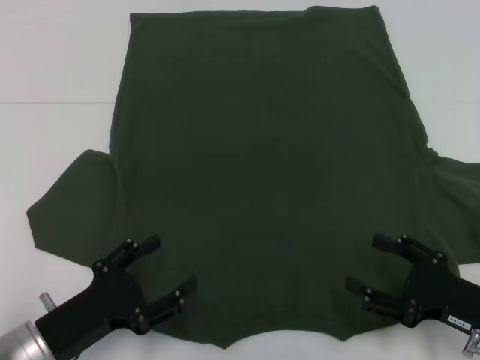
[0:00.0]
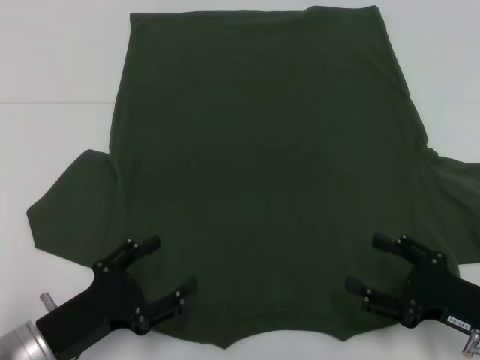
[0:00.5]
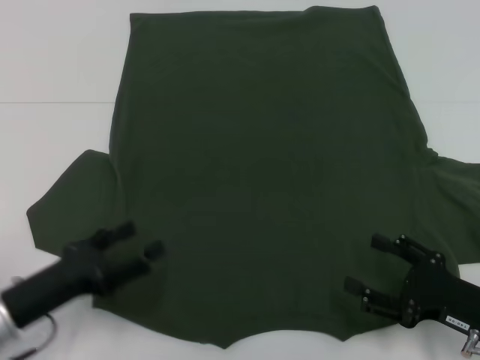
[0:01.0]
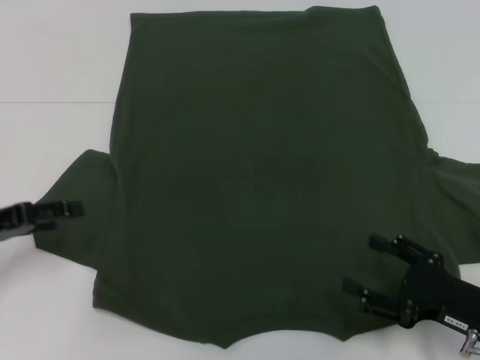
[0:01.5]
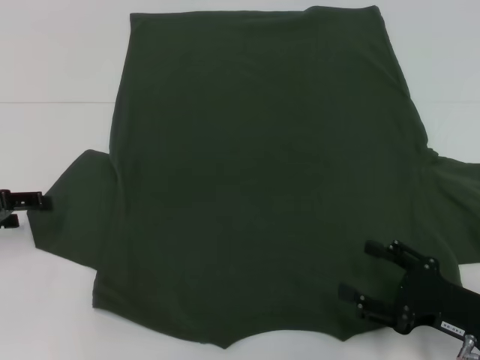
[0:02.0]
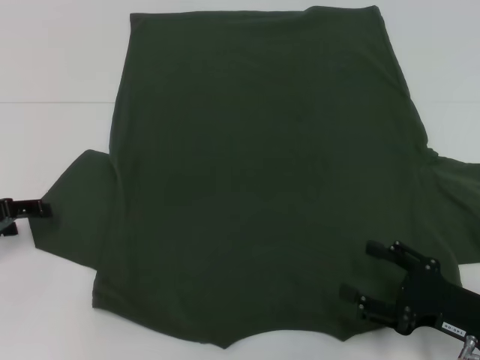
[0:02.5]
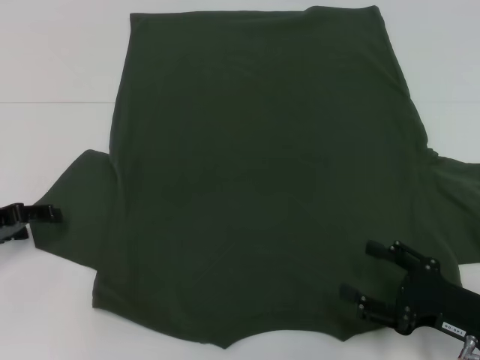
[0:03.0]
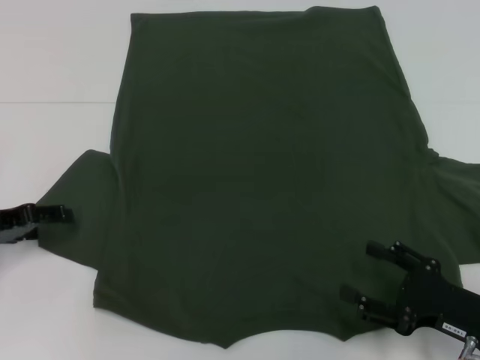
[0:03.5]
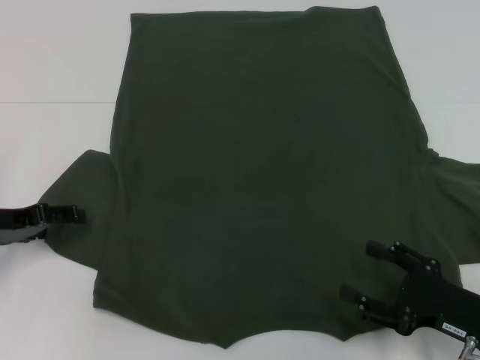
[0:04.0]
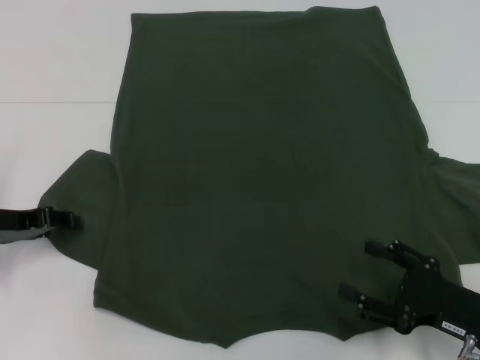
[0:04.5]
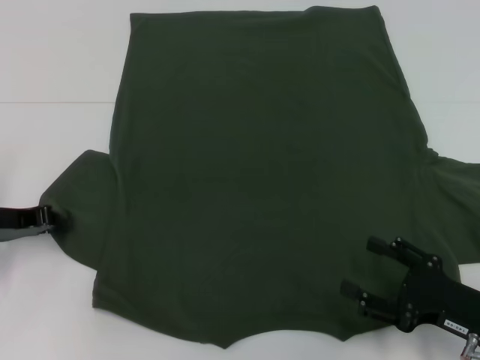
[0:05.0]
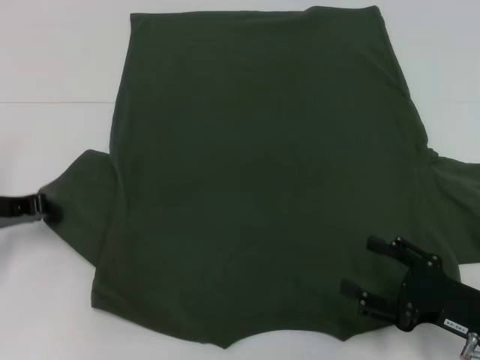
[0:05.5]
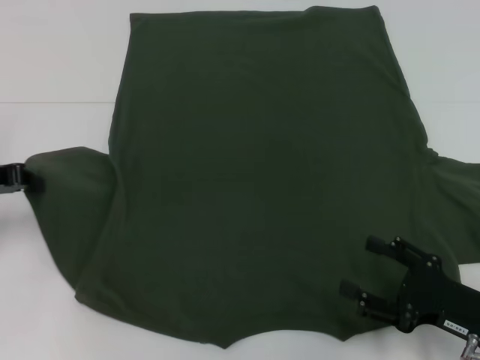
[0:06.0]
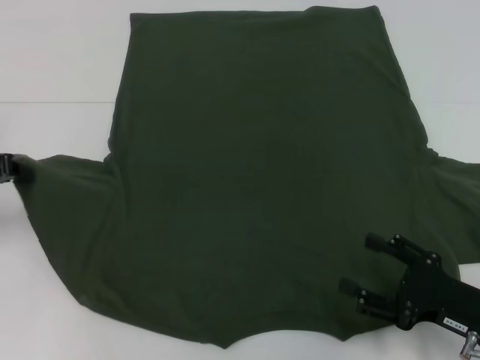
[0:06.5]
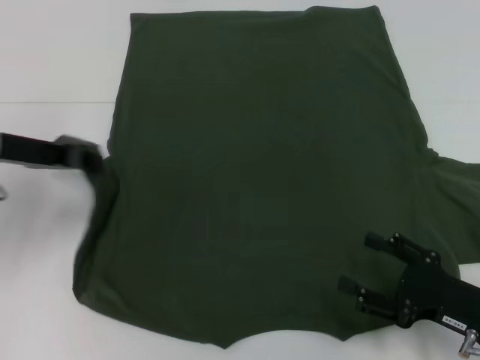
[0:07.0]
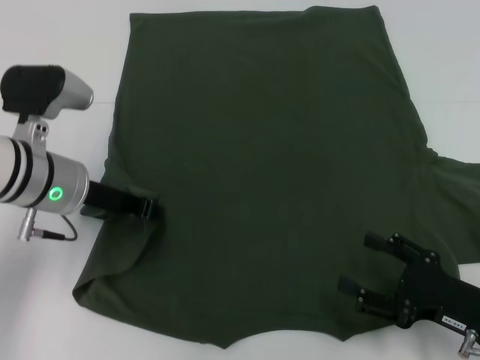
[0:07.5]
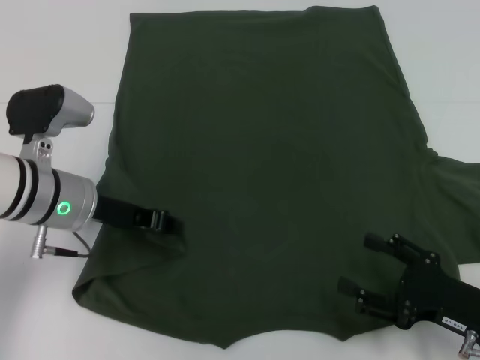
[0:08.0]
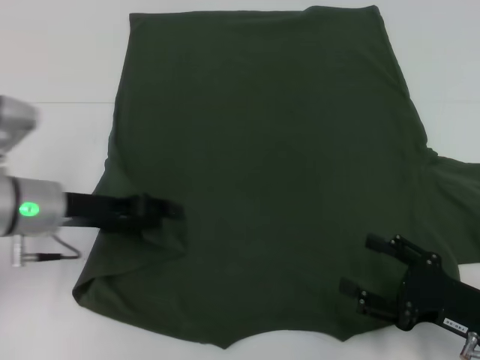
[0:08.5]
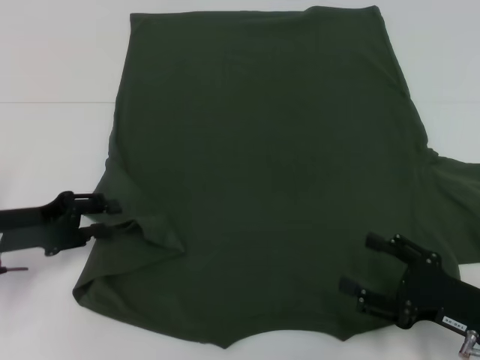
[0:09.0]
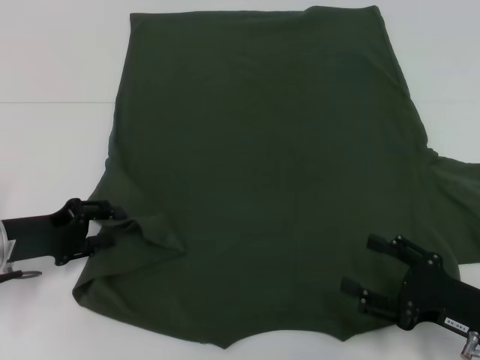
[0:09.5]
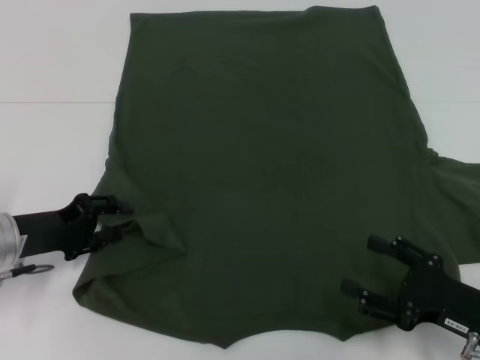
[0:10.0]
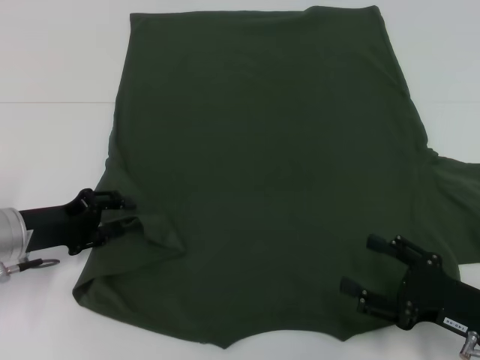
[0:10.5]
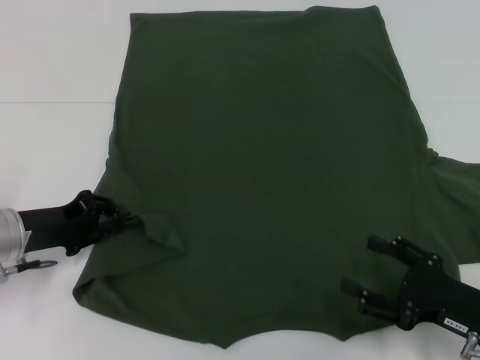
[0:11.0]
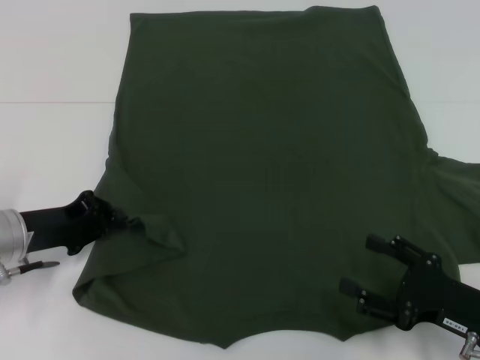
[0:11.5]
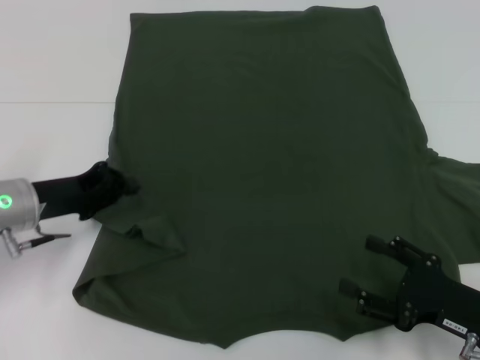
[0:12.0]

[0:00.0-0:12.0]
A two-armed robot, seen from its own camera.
0:00.0 to 0:02.0: The left gripper is displaced to the left, forward and upward by some 20 cm.
0:02.0 to 0:04.0: The grippers move only a little.
0:04.0 to 0:06.0: The left gripper moves upward, approximately 5 cm, and closes.
0:06.0 to 0:08.0: The left gripper shifts about 15 cm to the right.
0:08.0 to 0:10.0: The left gripper moves to the left and downward, roughly 10 cm, and opens its fingers.
0:10.0 to 0:12.0: The left gripper closes.

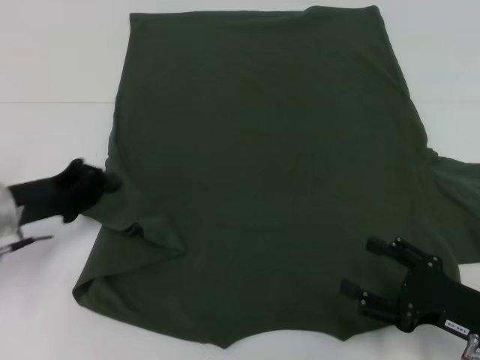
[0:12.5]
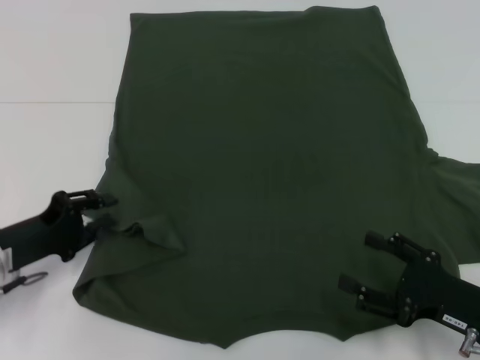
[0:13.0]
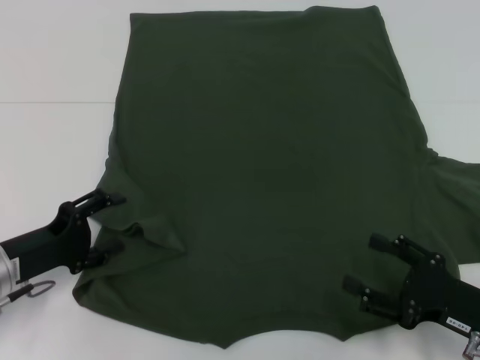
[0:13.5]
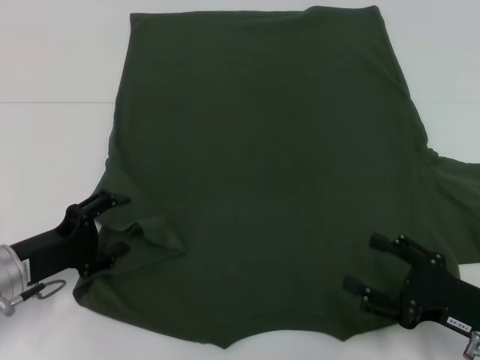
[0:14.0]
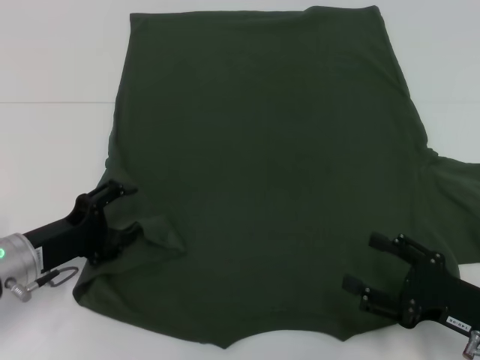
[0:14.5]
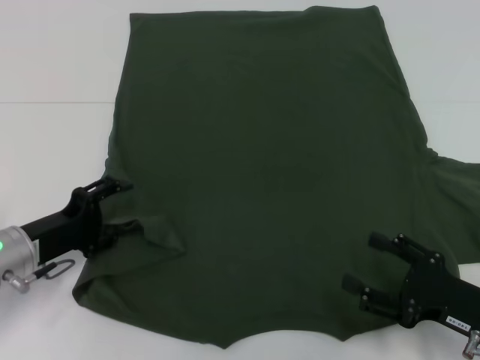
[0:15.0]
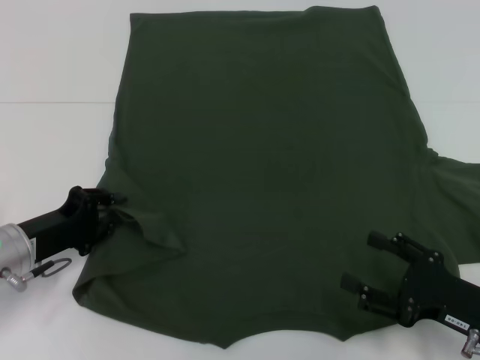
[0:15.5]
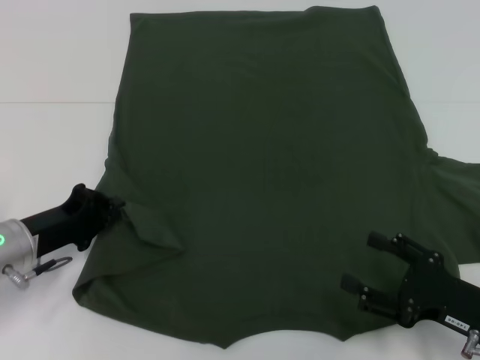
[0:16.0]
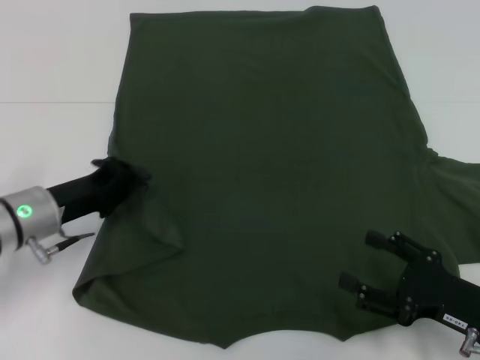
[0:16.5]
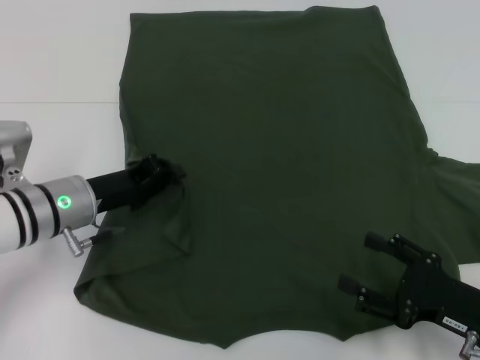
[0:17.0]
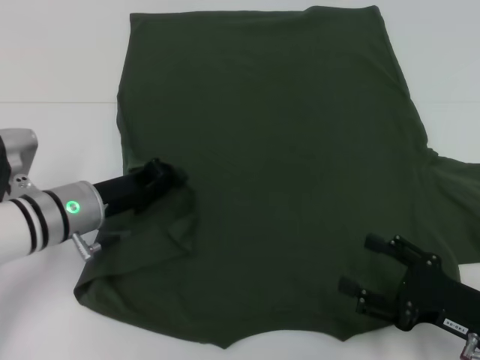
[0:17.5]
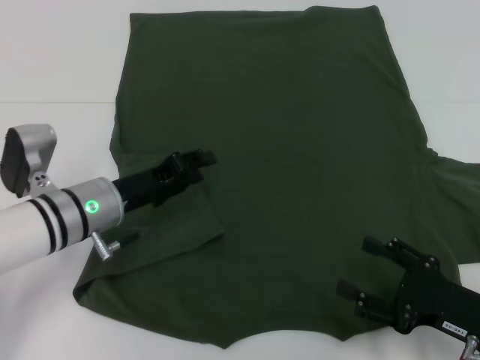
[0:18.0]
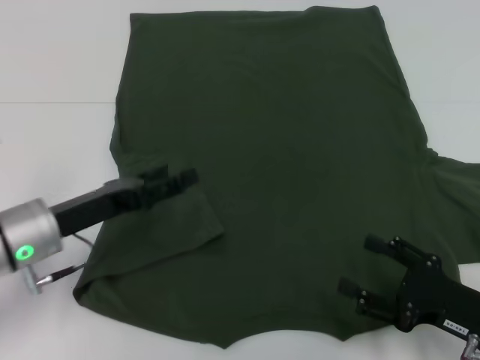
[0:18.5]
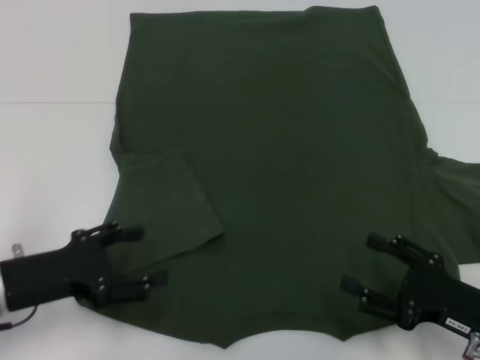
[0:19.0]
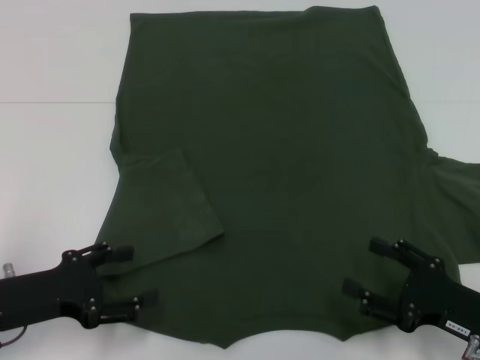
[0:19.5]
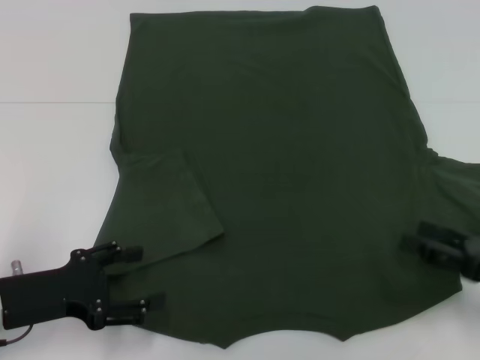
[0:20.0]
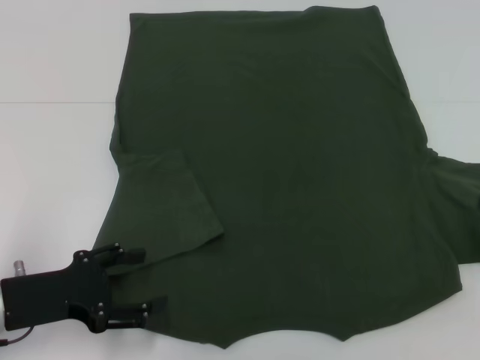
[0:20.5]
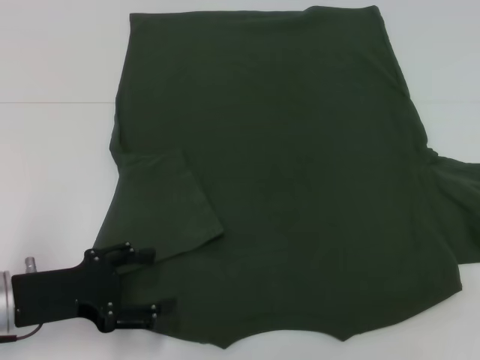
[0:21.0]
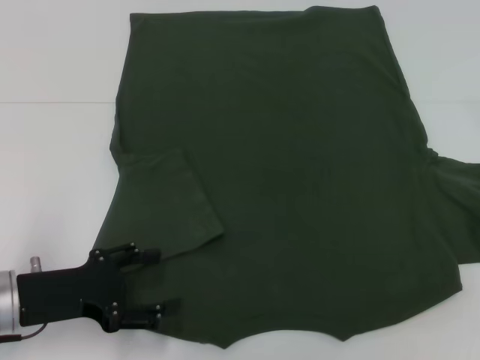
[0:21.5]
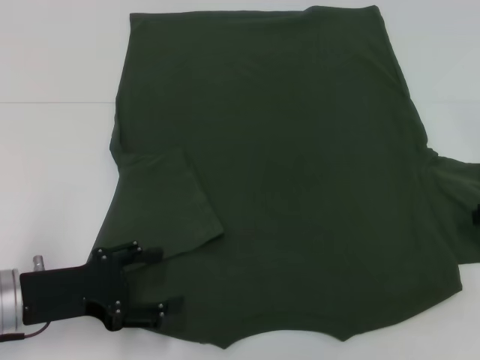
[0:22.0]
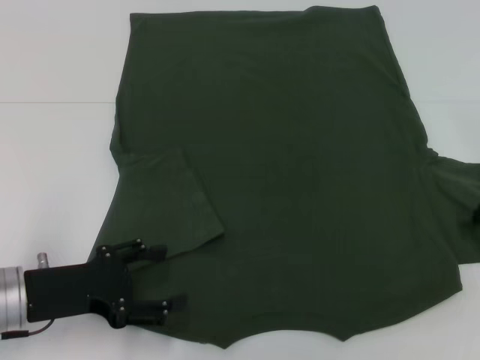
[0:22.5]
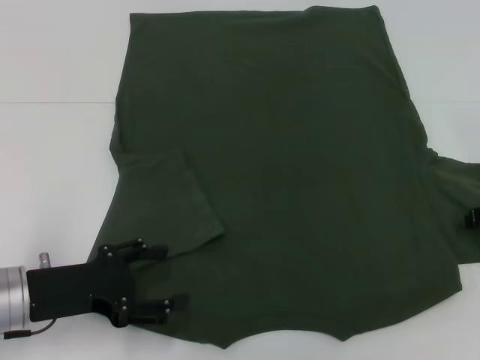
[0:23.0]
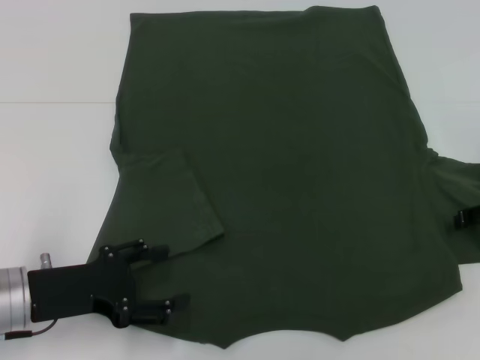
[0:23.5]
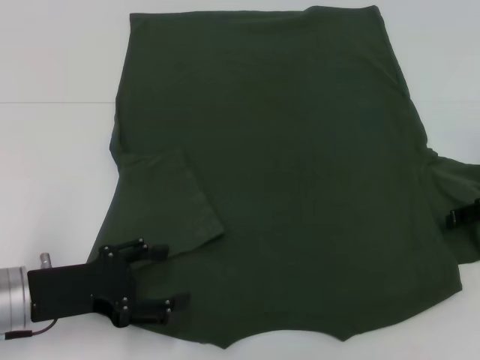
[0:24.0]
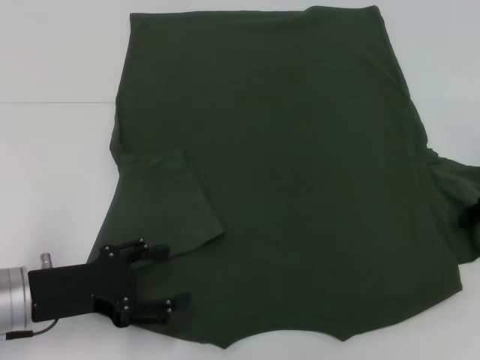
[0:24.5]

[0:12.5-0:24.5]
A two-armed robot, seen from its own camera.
Step, 0:12.5 to 0:17.5: Fold the bottom left sleeve with your left hand.
0:12.5 to 0:14.5: The left gripper ends up approximately 5 cm from where it was, and opens.
0:14.5 to 0:16.5: The left gripper changes place by approximately 5 cm, and closes up.
0:16.5 to 0:18.5: The left gripper opens its fingers.
0:18.5 to 0:20.5: The left gripper heads backward, covering some 5 cm. Meanwhile the right gripper is displaced to the right, upward and forward by about 20 cm.
0:22.5 to 0:24.5: The grippers make only small movements.

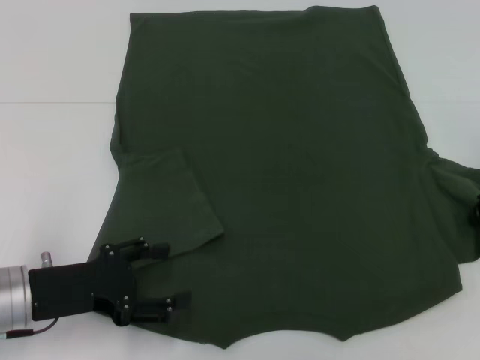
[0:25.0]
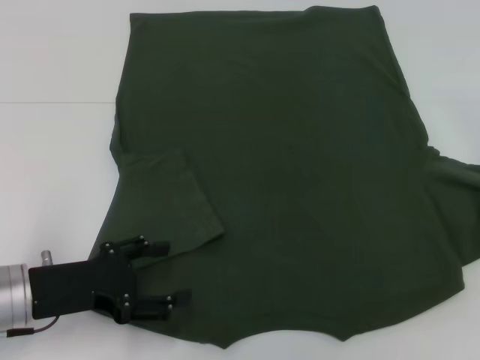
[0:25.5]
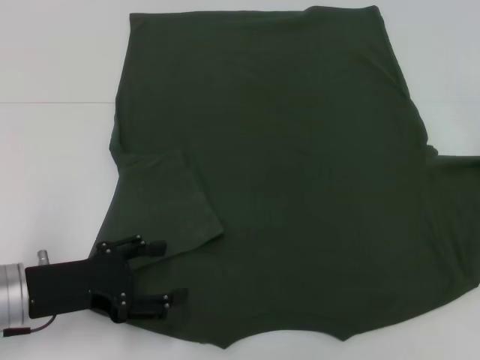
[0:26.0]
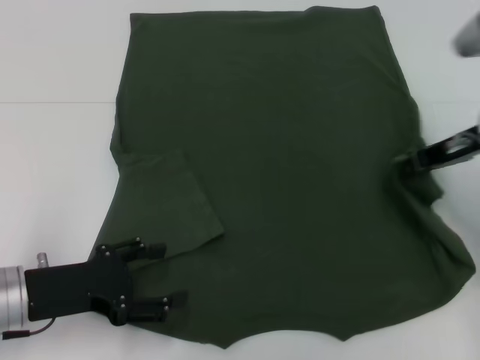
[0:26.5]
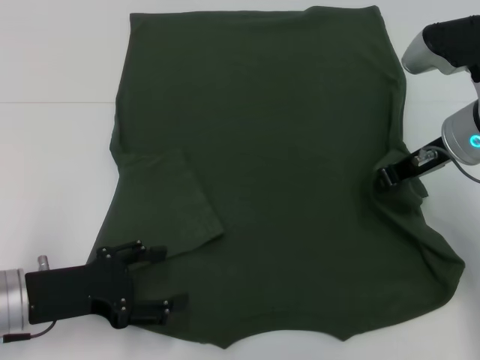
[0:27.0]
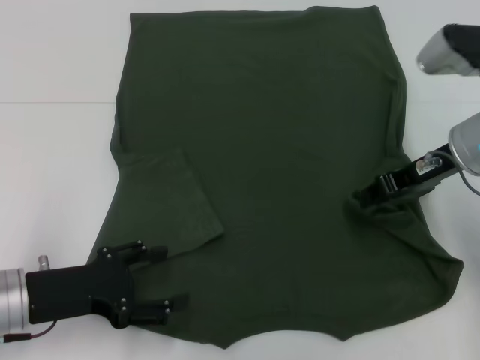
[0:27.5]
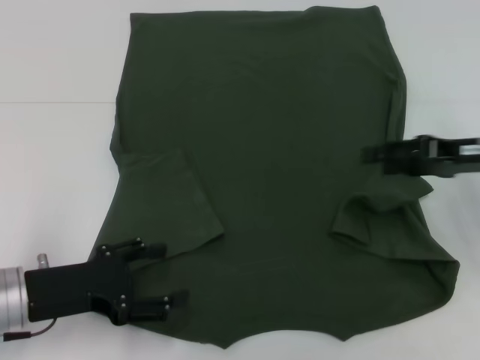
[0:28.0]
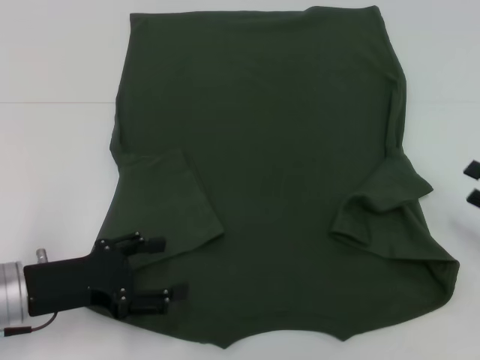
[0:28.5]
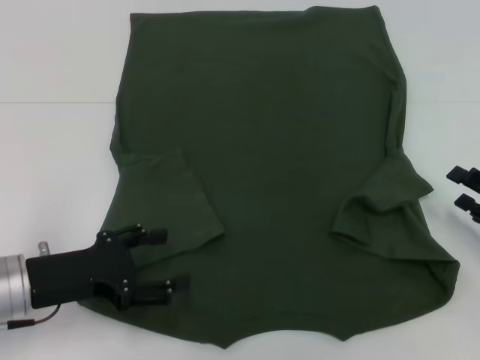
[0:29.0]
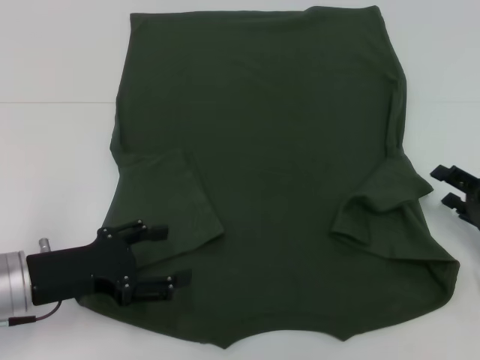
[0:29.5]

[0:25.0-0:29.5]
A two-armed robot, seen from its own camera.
0:25.0 to 0:27.0: The right gripper heads to the left, covering some 10 cm.
0:27.0 to 0:29.5: The right gripper heads downward, to the right and backward, covering some 20 cm, and opens its fingers.
